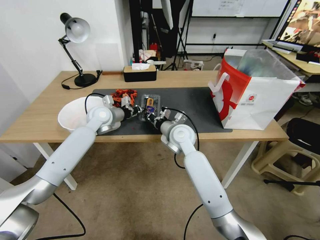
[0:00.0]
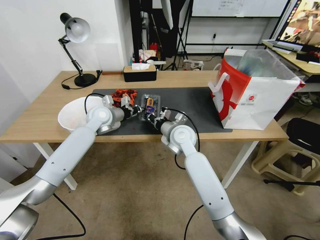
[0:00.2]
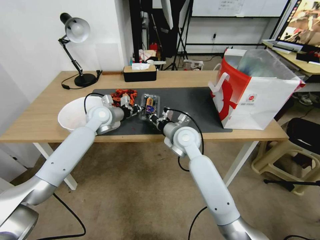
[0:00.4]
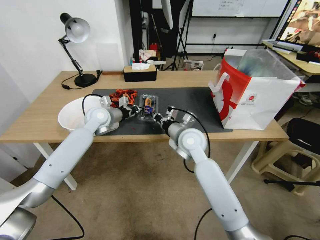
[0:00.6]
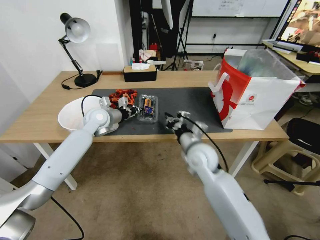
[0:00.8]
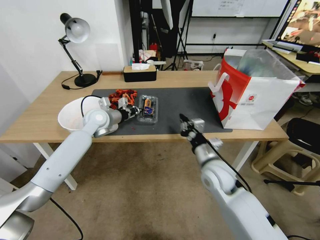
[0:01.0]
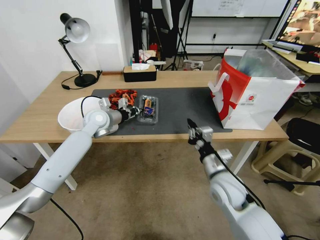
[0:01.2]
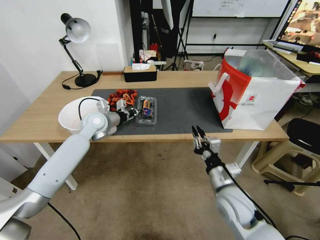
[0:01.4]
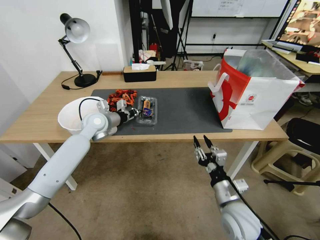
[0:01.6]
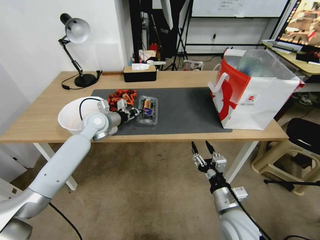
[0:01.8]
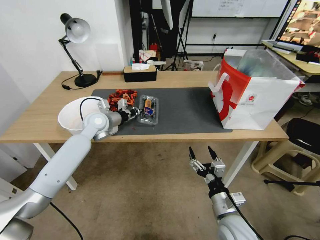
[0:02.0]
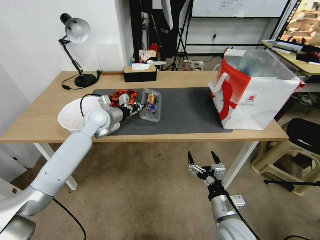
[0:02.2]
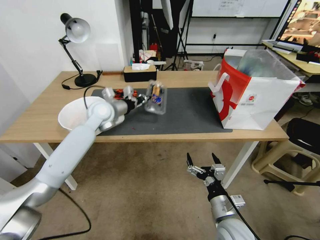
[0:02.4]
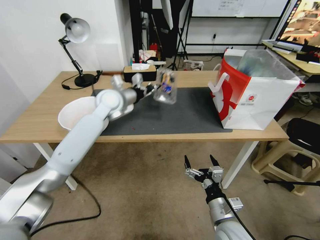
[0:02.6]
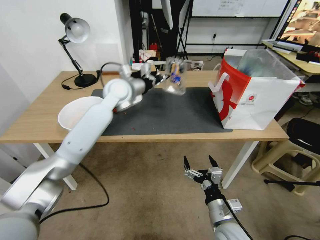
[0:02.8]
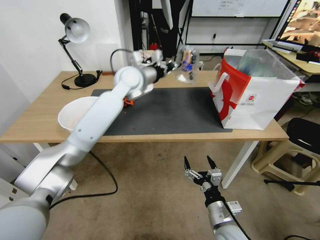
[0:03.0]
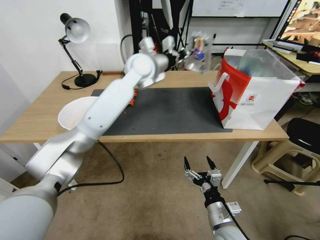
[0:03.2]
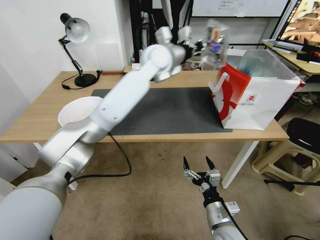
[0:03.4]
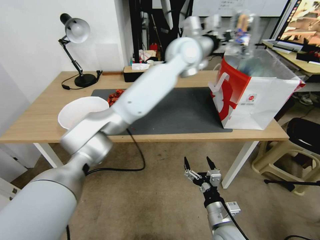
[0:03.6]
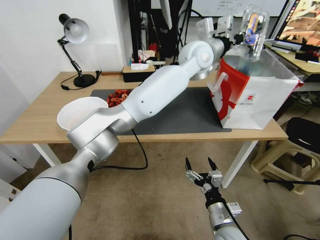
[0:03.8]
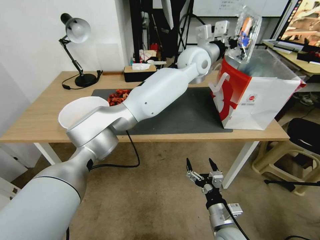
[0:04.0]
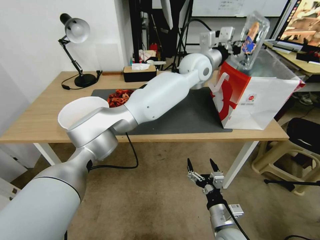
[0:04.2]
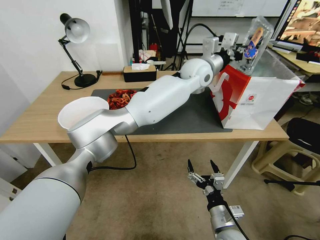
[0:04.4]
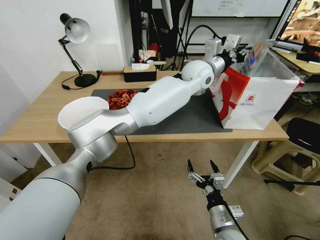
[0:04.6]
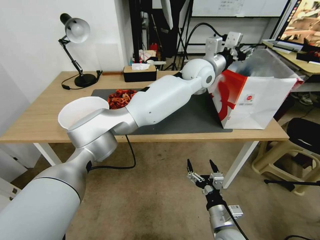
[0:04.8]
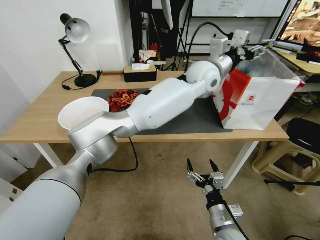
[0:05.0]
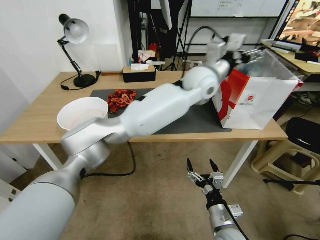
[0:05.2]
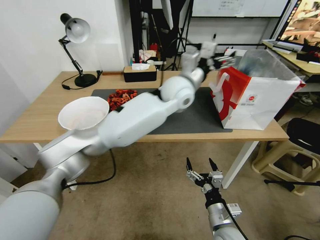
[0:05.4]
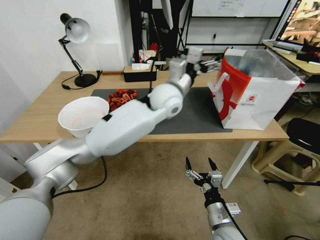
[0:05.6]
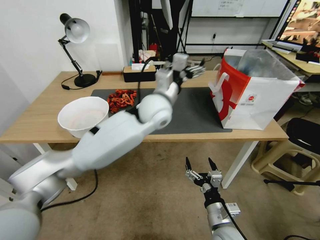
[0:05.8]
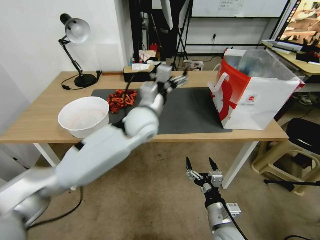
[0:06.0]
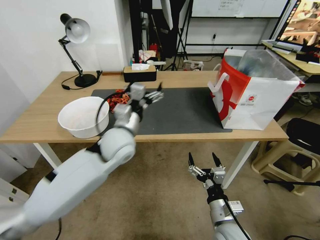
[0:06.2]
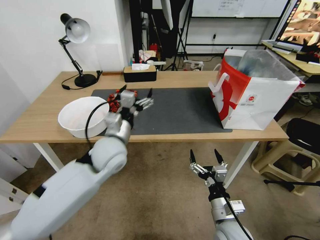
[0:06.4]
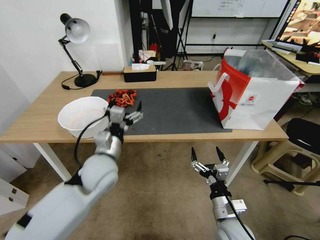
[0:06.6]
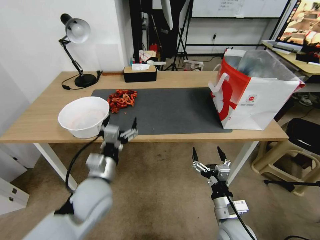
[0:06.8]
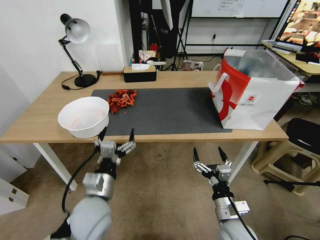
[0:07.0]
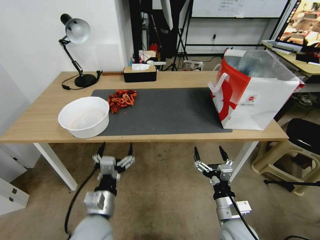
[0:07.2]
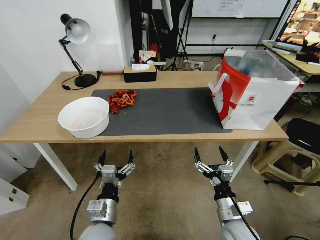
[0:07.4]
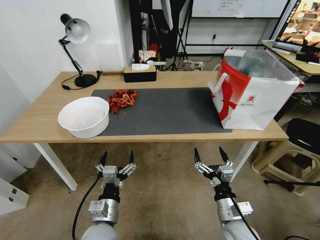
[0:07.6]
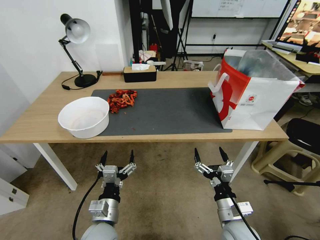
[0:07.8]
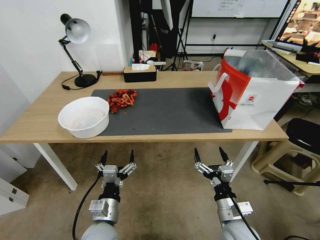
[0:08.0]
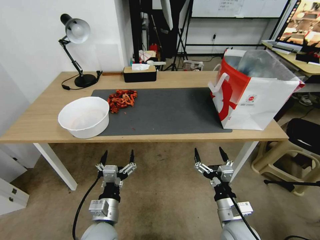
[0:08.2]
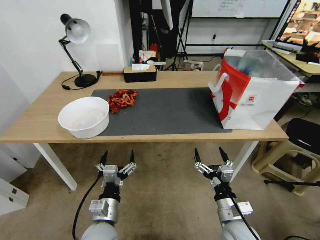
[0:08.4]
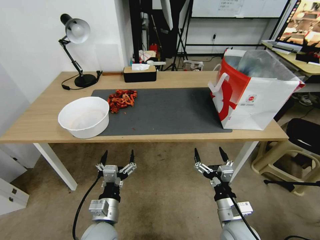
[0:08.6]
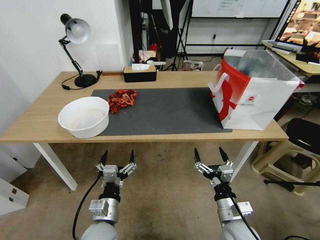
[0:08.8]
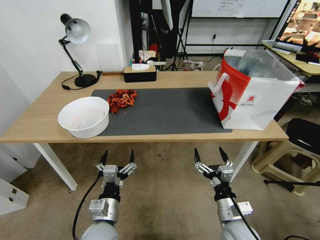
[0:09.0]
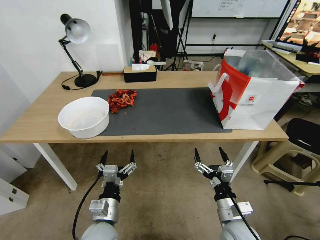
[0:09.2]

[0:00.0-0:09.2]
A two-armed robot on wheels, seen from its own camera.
Task of the whole recording: Close the takeout container lid, then place the container into the takeout bag.
0:00.0 to 0:01.6: The right gripper goes approximately 25 cm backward and to the right, and opens its fingers.
0:01.6 to 0:03.0: The right gripper is displaced backward by approximately 5 cm, and opens; the left gripper goes approximately 20 cm upward and to the right.
0:03.0 to 0:04.6: The left gripper heads to the right, covering approximately 20 cm.
0:04.6 to 0:06.2: The left gripper is displaced to the left, backward and downward by roughly 30 cm, and opens its fingers.
0:06.2 to 0:07.6: The left gripper moves backward and downward, roughly 25 cm.
0:07.6 to 0:09.2: Both grippers stay put.

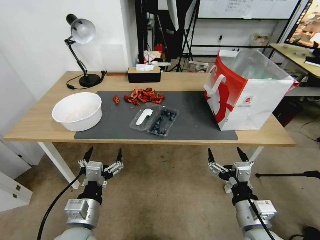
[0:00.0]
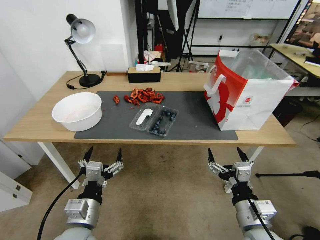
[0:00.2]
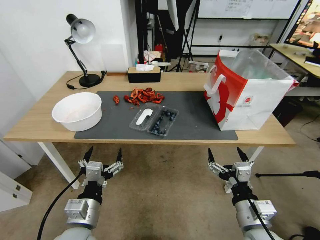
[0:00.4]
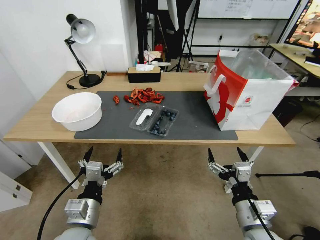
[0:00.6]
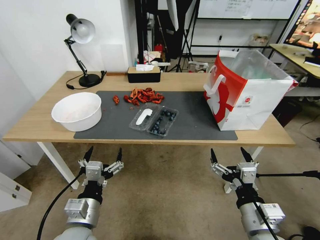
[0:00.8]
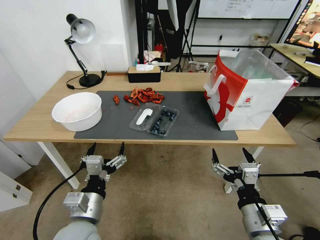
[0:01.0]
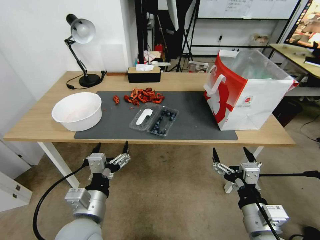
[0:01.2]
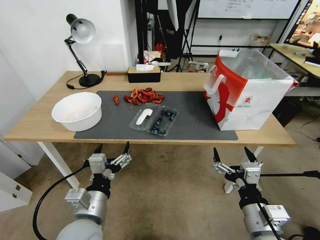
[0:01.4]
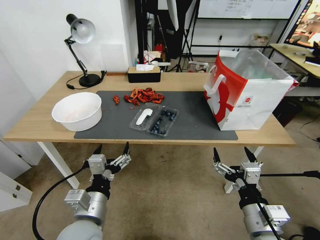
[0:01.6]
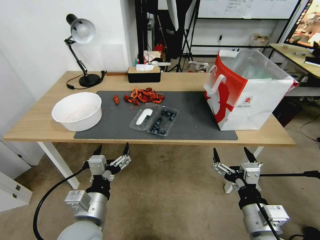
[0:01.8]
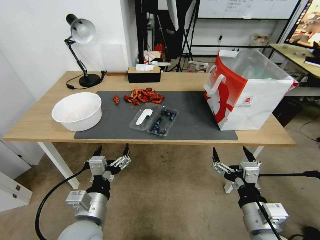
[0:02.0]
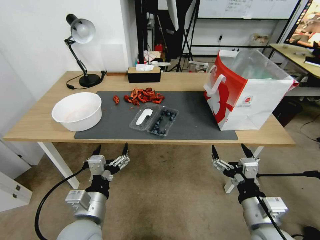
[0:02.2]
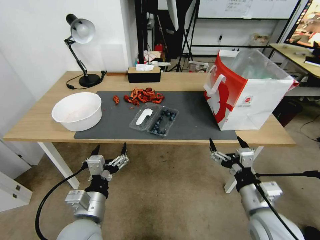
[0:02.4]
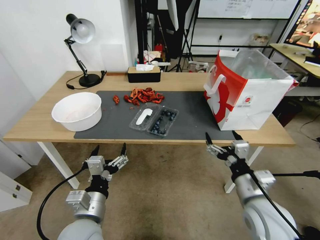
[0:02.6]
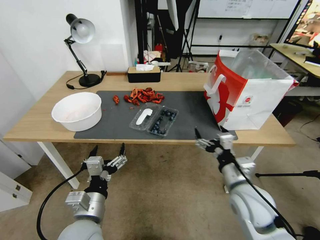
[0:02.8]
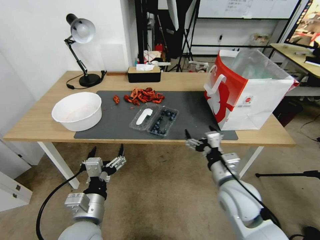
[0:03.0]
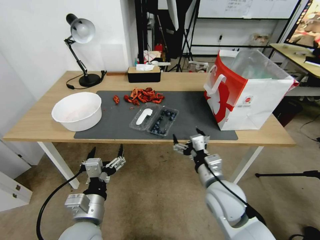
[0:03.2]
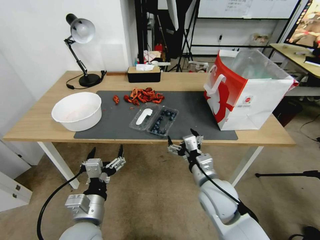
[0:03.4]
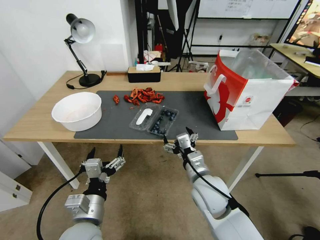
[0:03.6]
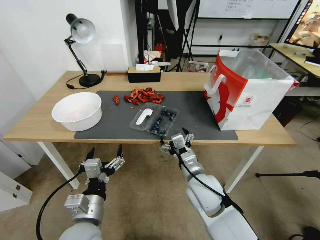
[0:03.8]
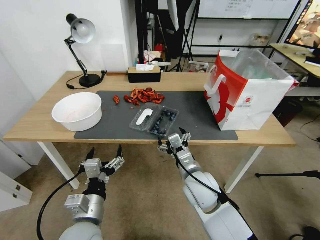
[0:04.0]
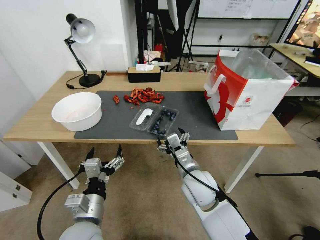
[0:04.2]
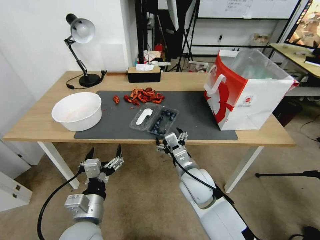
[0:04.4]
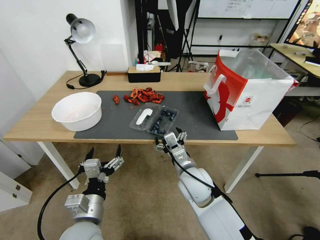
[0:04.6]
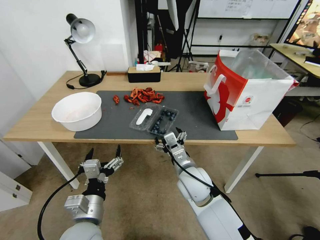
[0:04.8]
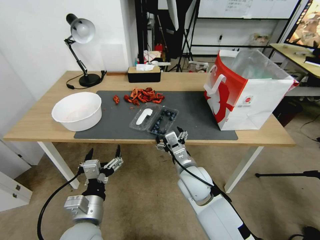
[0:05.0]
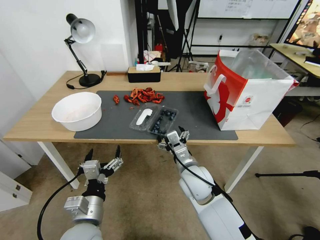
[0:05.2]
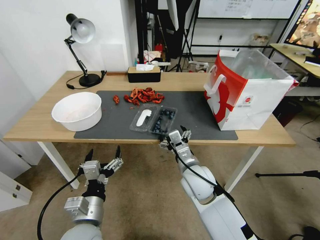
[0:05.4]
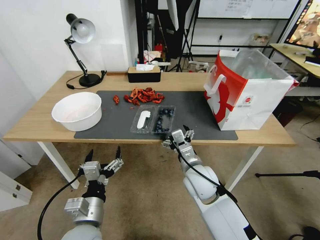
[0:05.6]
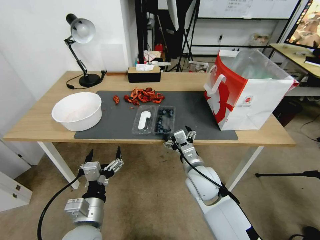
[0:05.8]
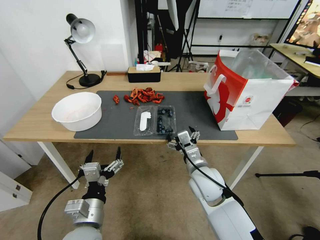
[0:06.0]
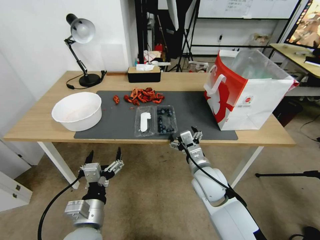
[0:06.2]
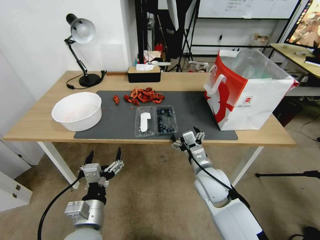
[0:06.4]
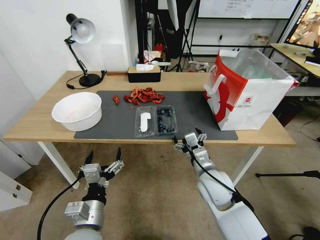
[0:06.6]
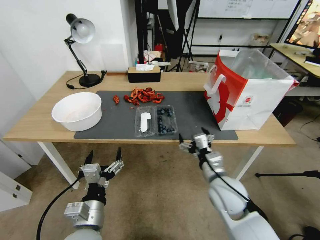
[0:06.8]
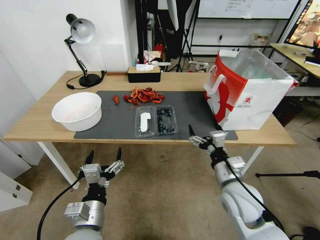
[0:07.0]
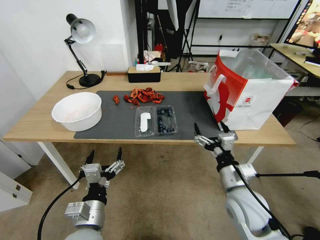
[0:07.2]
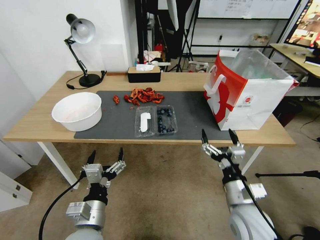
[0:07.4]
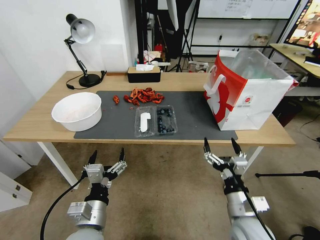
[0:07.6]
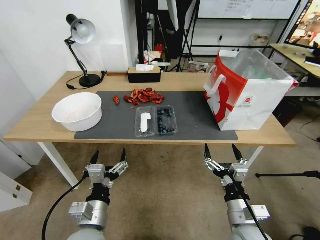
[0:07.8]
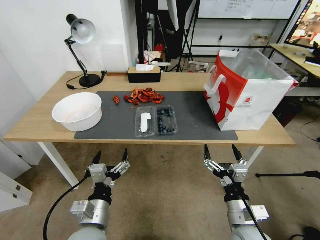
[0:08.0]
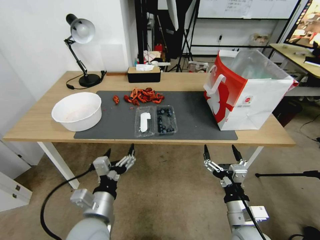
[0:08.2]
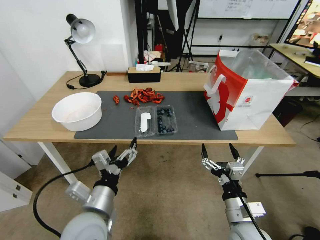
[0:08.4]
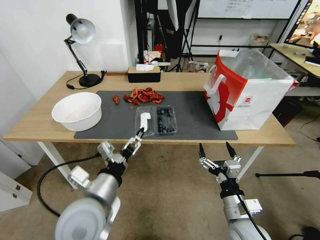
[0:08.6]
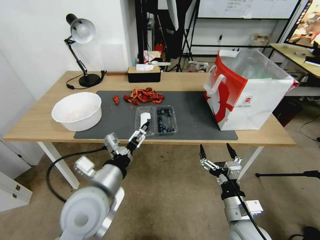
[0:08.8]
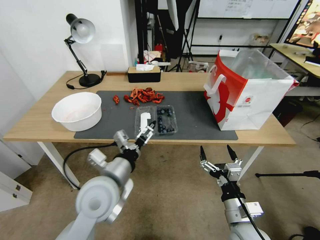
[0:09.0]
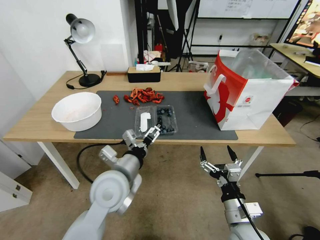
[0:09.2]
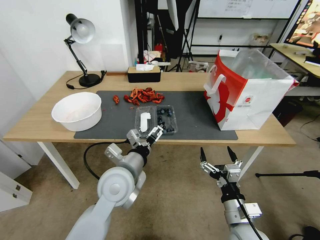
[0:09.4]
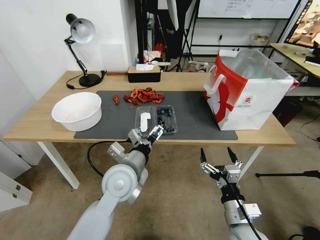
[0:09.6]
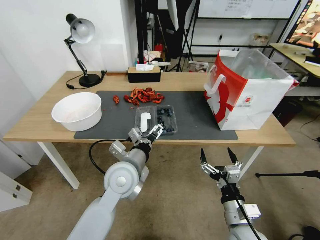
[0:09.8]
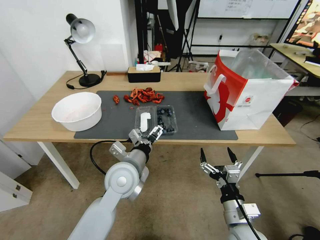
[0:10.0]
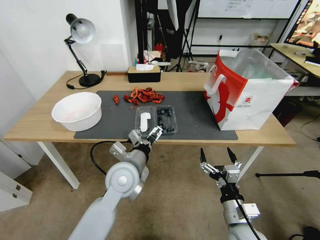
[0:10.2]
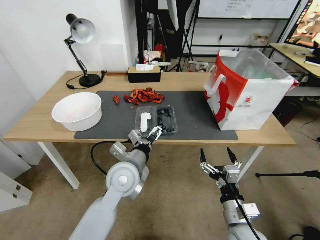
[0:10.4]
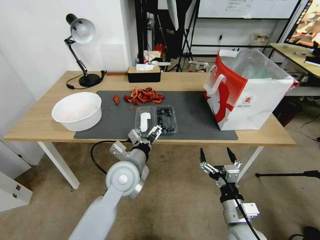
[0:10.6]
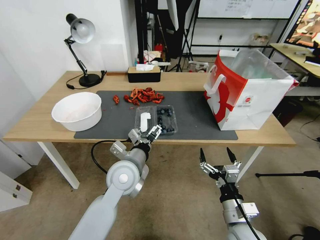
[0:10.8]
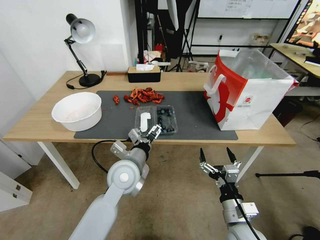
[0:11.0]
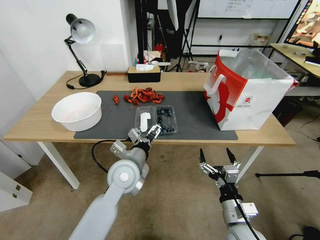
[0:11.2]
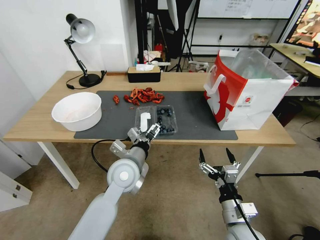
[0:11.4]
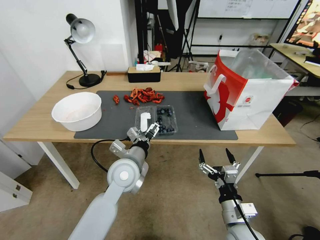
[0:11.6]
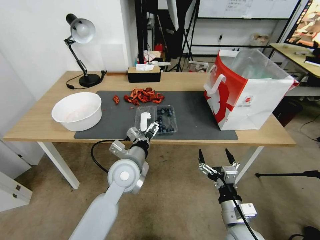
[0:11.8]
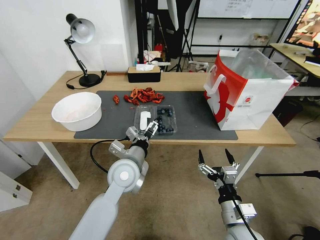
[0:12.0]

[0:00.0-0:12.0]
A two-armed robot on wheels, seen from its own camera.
Task of the whole recording: Close the takeout container lid, then place the container into the takeout bag.
0:01.6 to 0:03.0: The right gripper shifts approximately 10 cm forward.
0:03.0 to 0:04.4: The right gripper moves to the left, roughly 10 cm.
0:04.4 to 0:06.0: There are only small adjustments of the grippers.
0:06.0 to 0:07.6: The right gripper heads backward and to the right, covering about 15 cm.
0:07.6 to 0:09.0: The left gripper moves upward and forward, about 15 cm.
0:09.0 to 0:10.4: The left gripper shifts some 5 cm forward.
0:10.4 to 0:12.0: There are only small adjustments of the grippers.

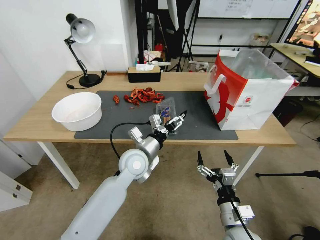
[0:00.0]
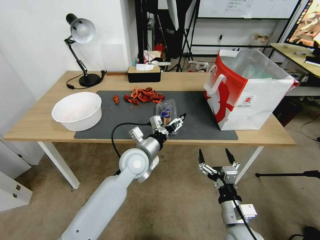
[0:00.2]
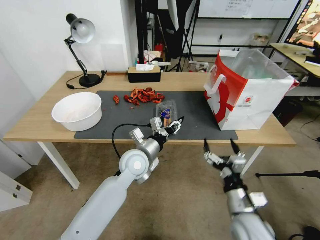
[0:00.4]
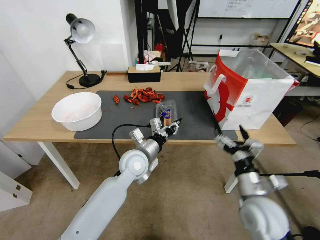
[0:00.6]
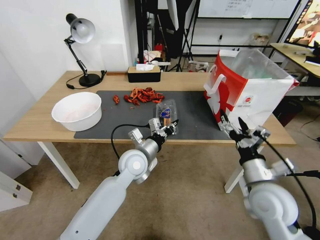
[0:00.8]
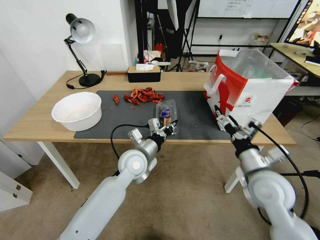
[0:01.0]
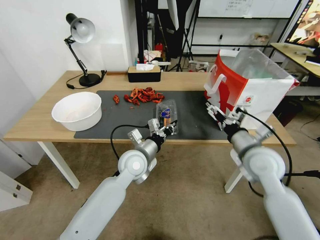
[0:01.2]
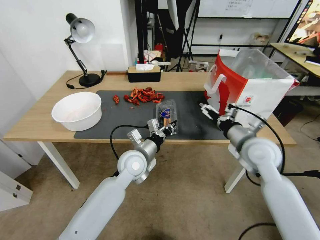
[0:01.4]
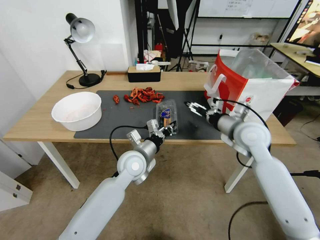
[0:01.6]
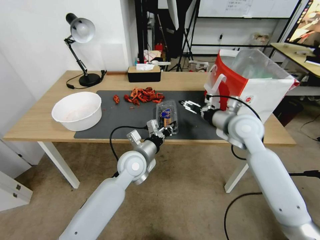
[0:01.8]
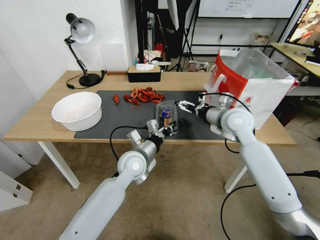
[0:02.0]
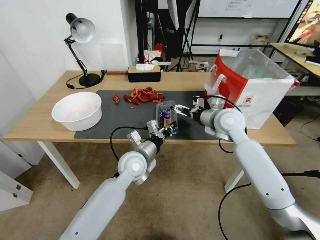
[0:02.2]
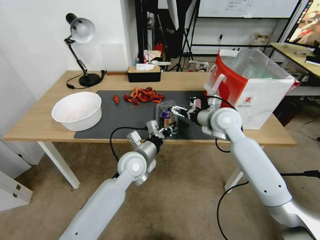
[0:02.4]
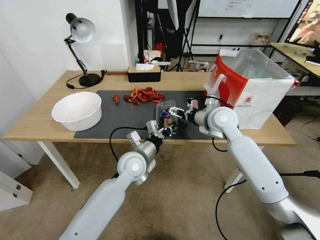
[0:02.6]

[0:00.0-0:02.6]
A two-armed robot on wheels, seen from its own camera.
Task of the whole recording: Close the takeout container lid, then place the container into the takeout bag.
0:00.0 to 0:01.2: The right gripper goes about 25 cm forward, upward and to the right, while the left gripper closes its fingers.
0:01.2 to 0:02.6: The right gripper shifts some 15 cm forward and to the left.
